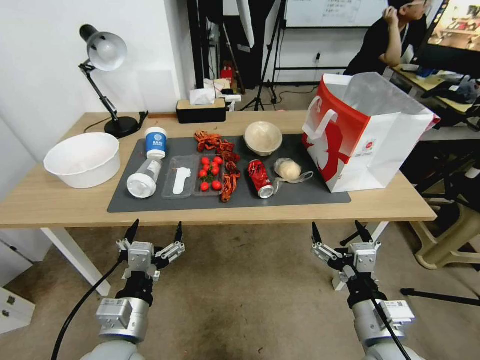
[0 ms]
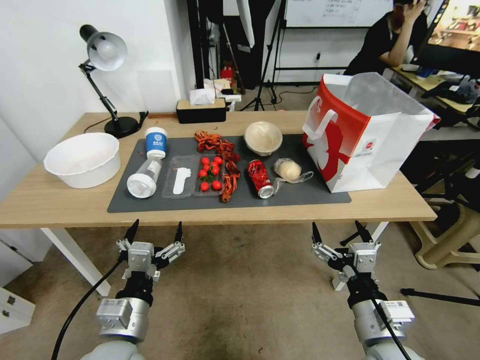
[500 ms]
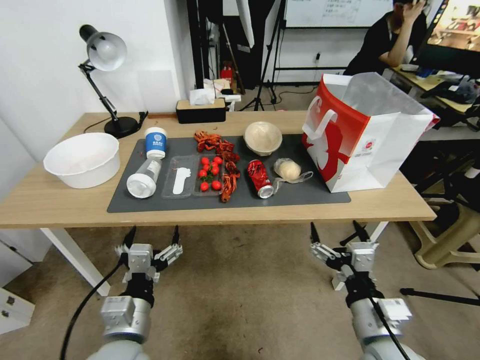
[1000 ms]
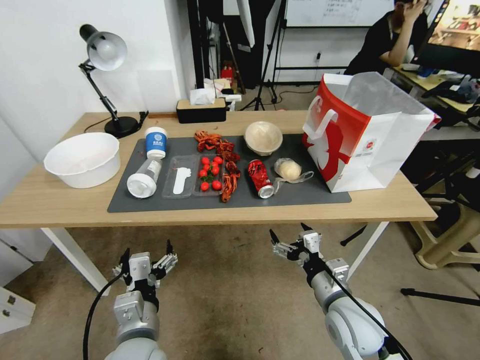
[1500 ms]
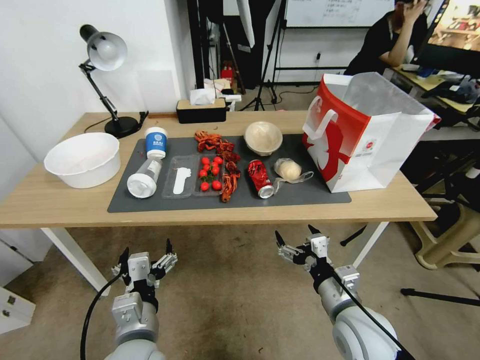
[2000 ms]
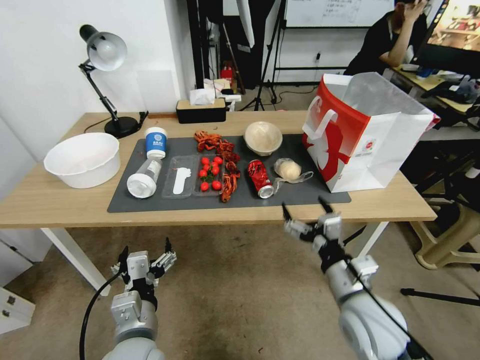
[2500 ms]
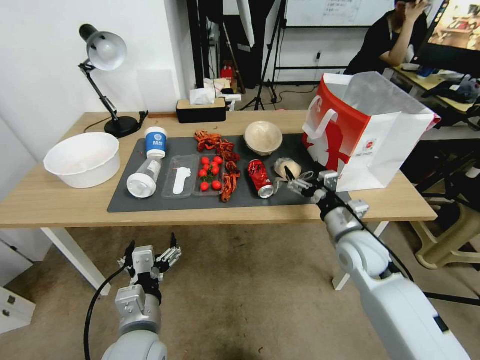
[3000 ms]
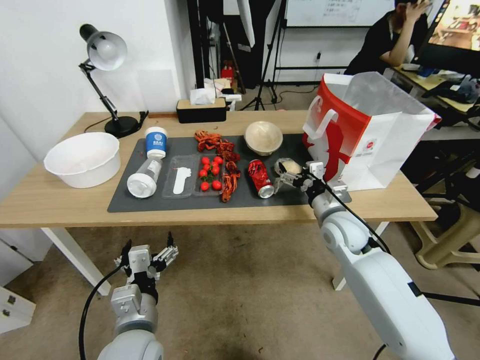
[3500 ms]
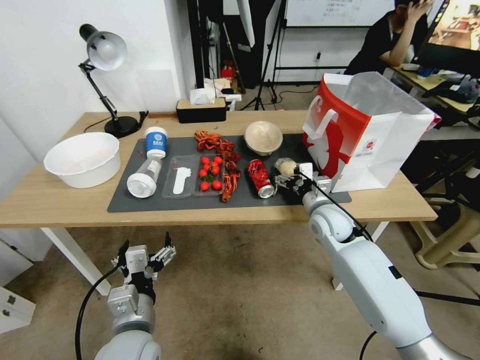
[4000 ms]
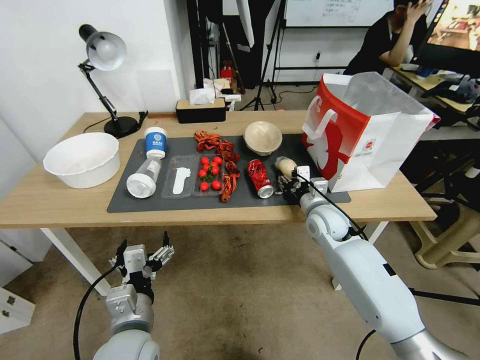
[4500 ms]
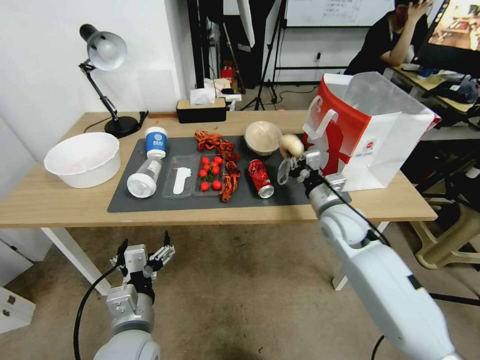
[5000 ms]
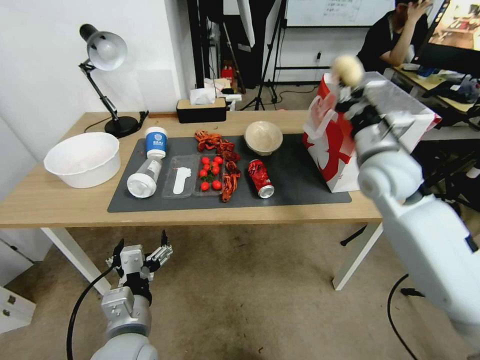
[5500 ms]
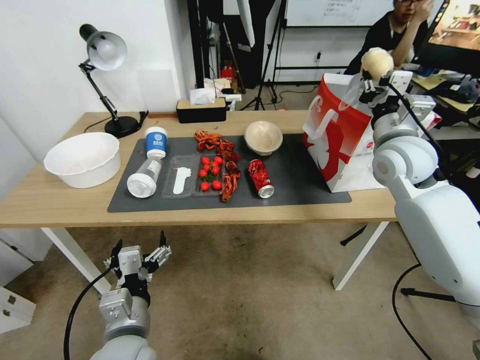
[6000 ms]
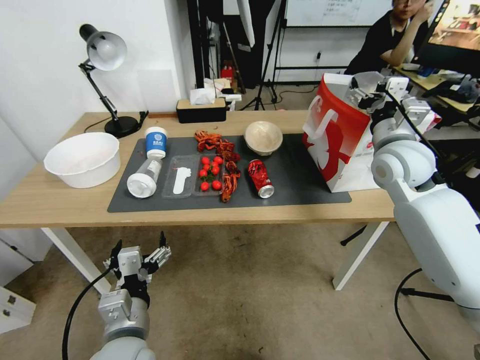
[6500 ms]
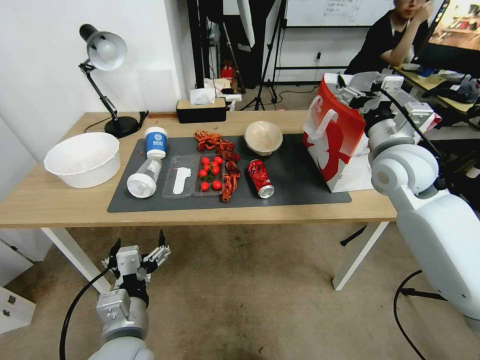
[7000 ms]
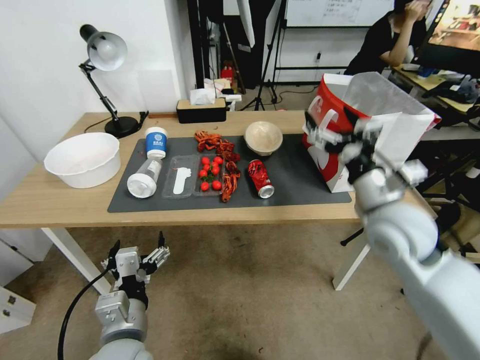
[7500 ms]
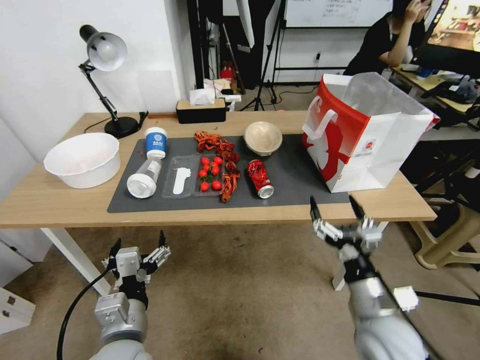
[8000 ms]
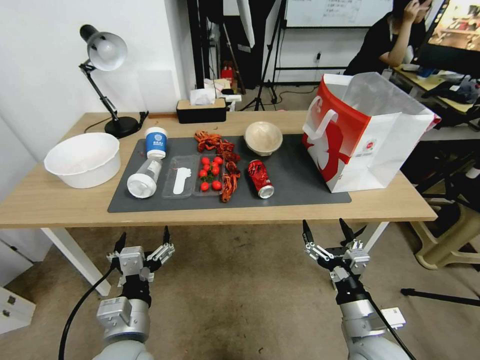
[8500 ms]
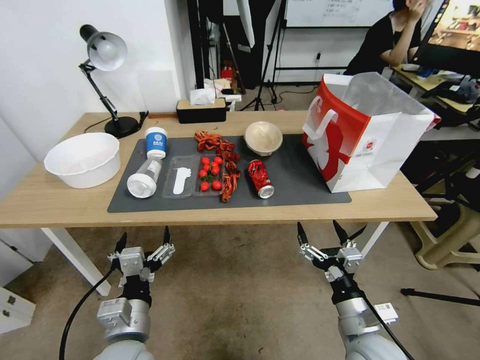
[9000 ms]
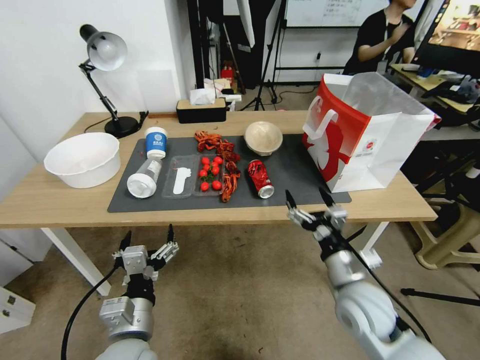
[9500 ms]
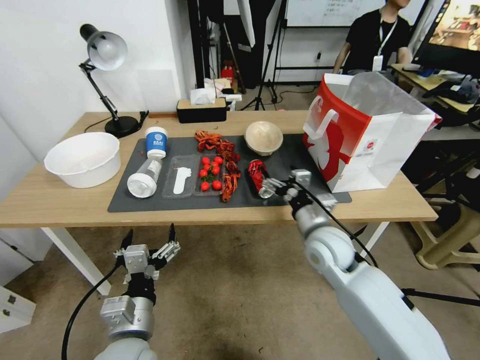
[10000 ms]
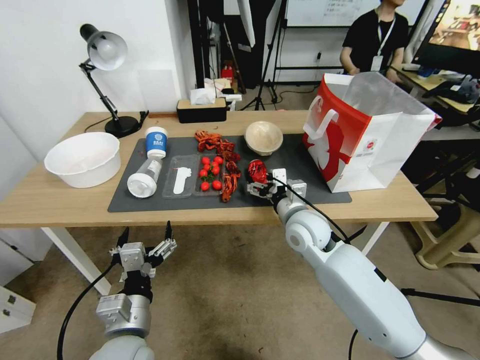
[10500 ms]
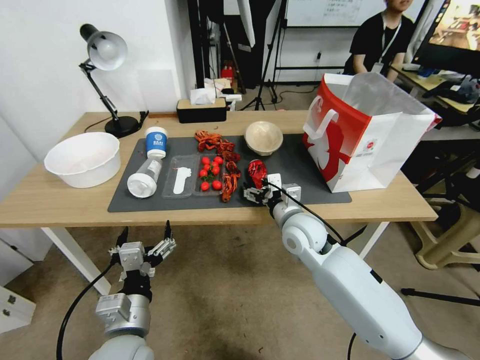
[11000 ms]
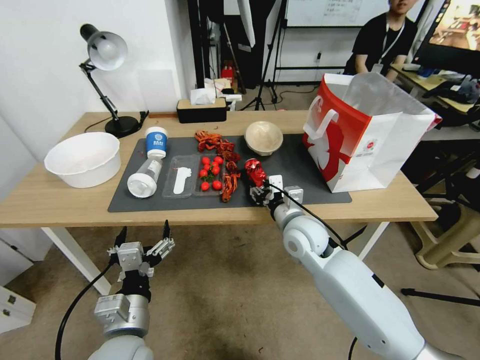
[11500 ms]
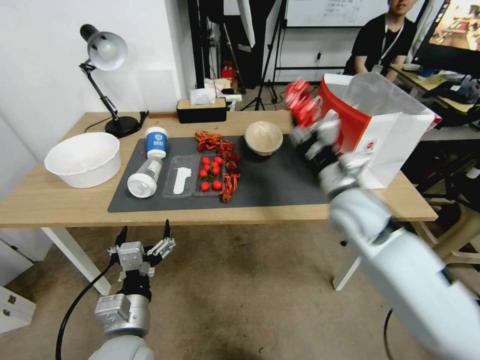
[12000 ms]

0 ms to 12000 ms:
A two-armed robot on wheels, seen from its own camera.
2000 ms to 4000 ms: The right gripper shifts approximately 20 cm forward.
4000 ms to 6000 ms: The right gripper goes about 20 cm upward and to the right, and closes.
6000 ms to 8000 ms: The right gripper moves backward and downward, approximately 35 cm, and opens its fingers.
8000 ms to 10000 ms: The right gripper shifts approximately 15 cm forward.
10000 ms to 12000 ms: The right gripper moves upward, roughly 10 cm, and closes.

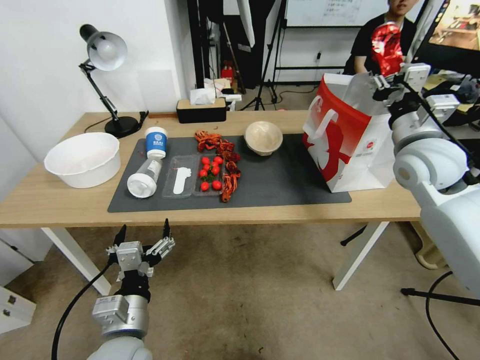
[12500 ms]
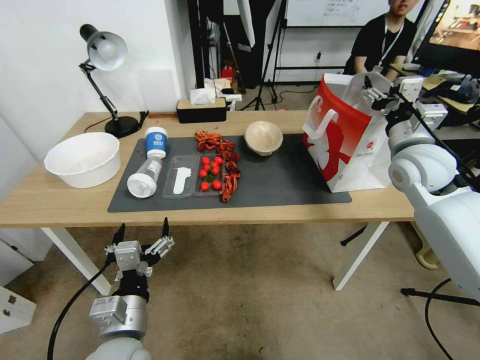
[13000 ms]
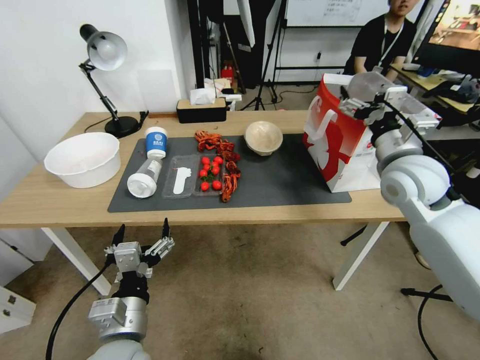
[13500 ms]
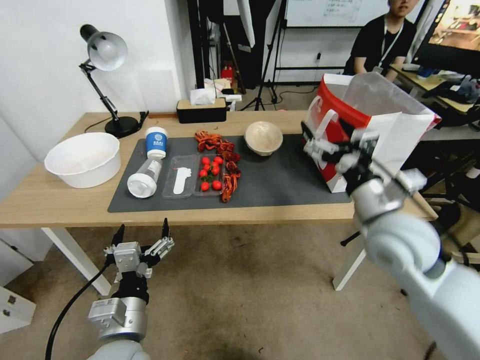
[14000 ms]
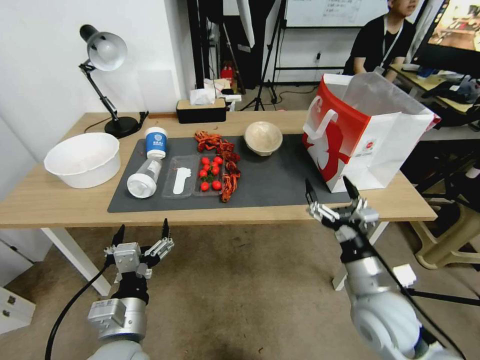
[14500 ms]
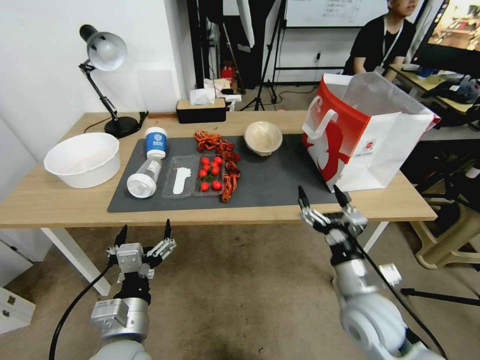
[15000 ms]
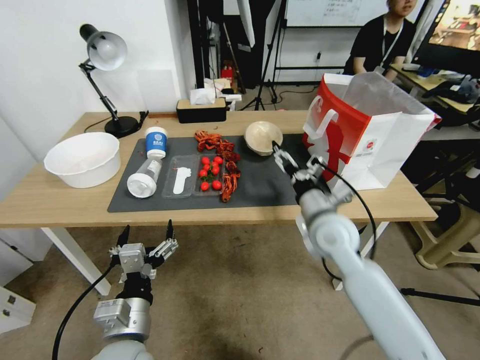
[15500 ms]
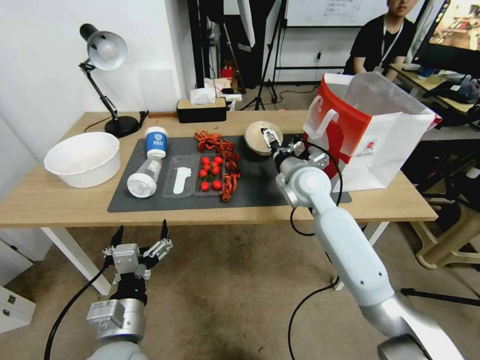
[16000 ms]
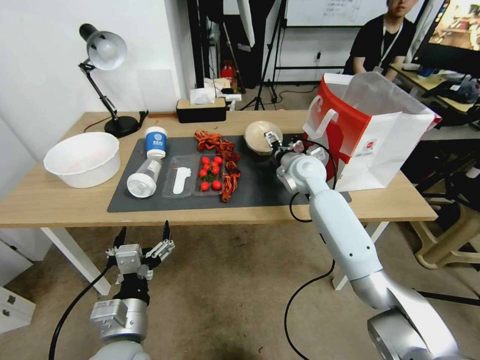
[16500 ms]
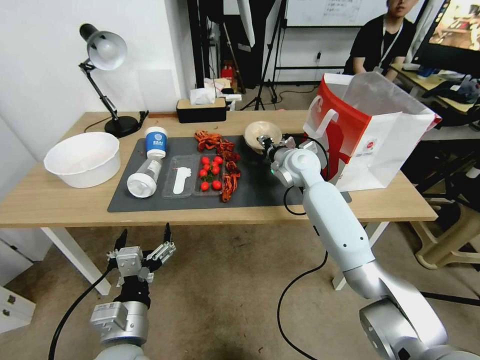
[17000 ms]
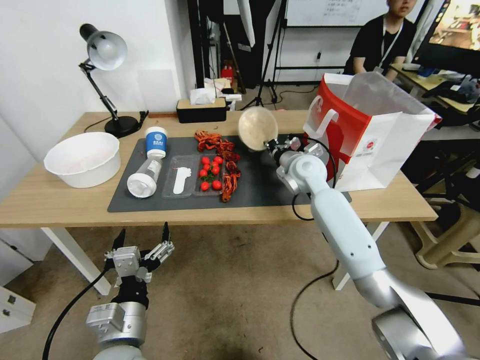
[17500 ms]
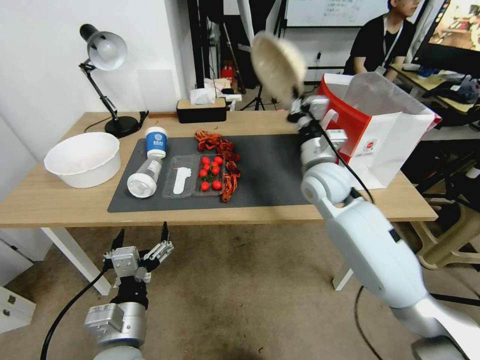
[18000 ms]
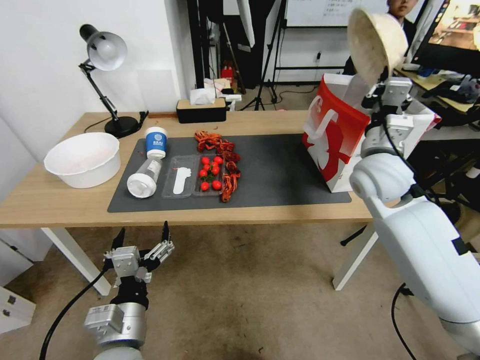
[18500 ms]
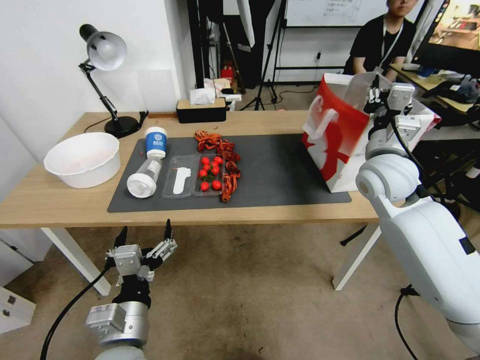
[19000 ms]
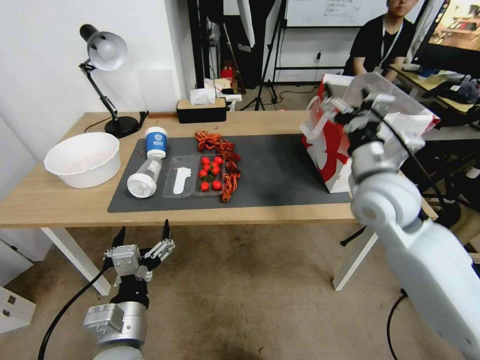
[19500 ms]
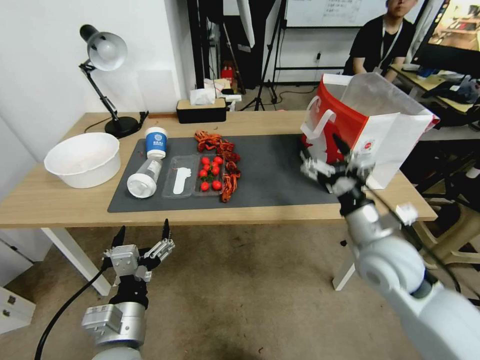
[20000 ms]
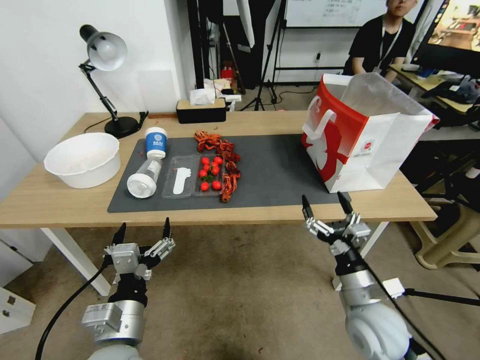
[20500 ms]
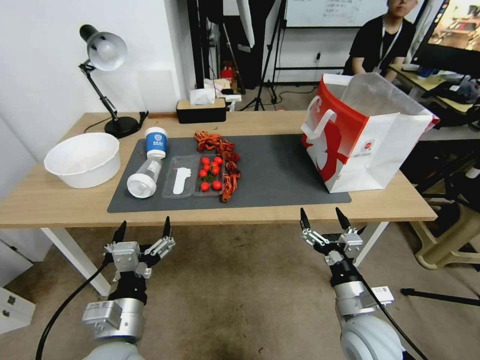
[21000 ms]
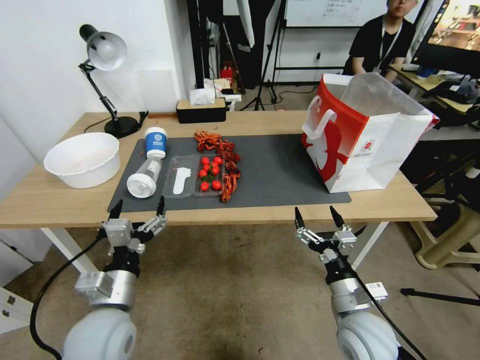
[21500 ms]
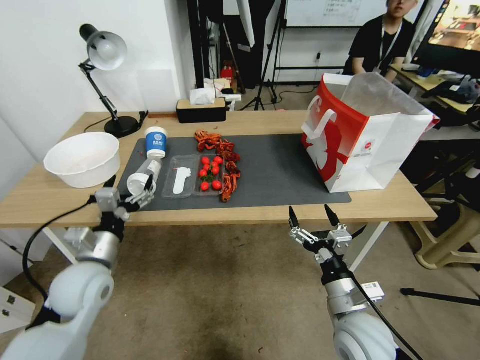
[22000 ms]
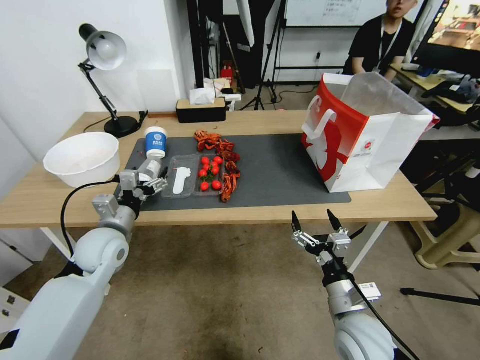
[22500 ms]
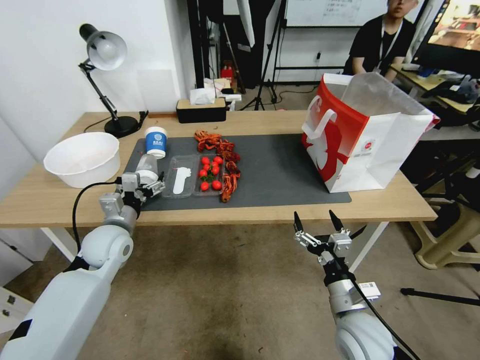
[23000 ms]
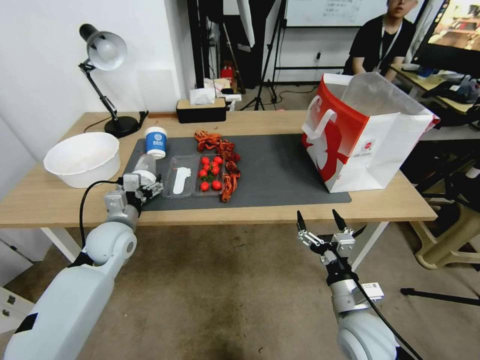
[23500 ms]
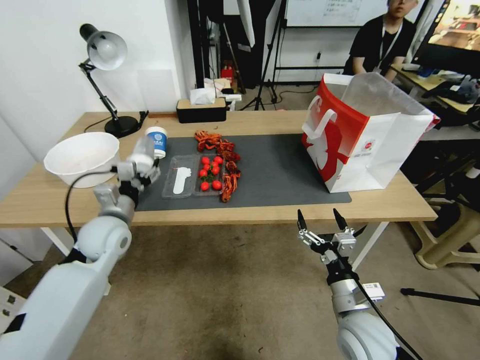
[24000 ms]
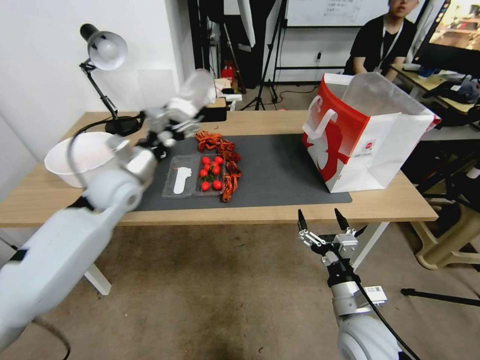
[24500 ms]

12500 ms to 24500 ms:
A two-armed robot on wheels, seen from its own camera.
12500 ms to 14500 ms: The right gripper travels backward, downward and to the left by about 25 cm, and opens.
14500 ms to 16500 ms: The right gripper moves forward, some 30 cm.
16500 ms to 18500 ms: The right gripper goes approximately 15 cm backward, to the right and upward, and closes.
18500 ms to 20500 ms: The right gripper goes roughly 30 cm downward and backward, and opens.
20500 ms to 22500 ms: The left gripper travels forward and to the left by approximately 25 cm.
22500 ms to 24500 ms: The left gripper travels upward and forward by about 15 cm.

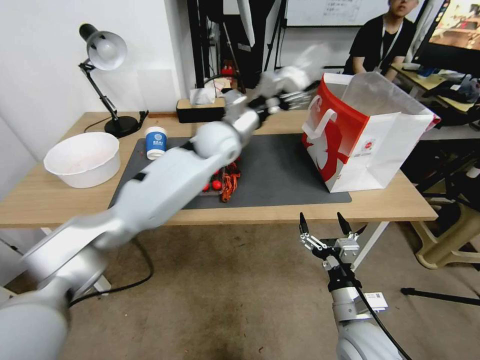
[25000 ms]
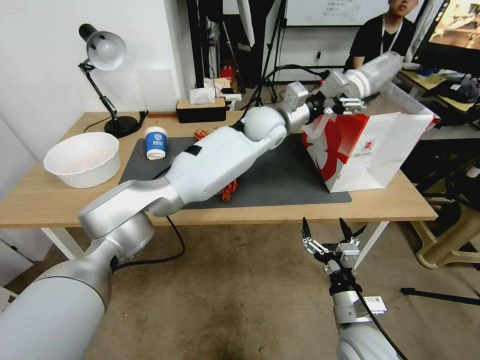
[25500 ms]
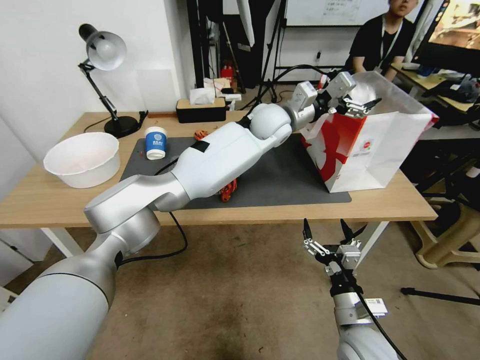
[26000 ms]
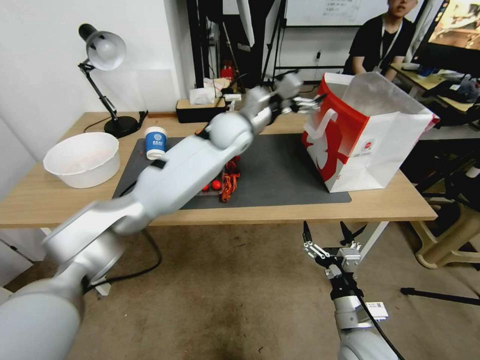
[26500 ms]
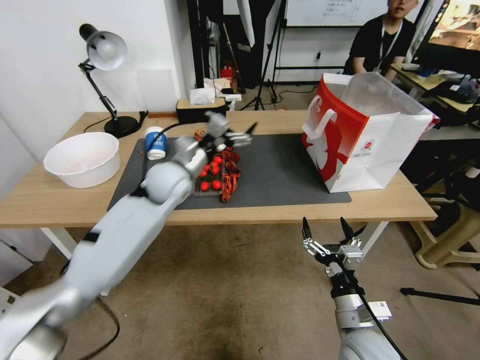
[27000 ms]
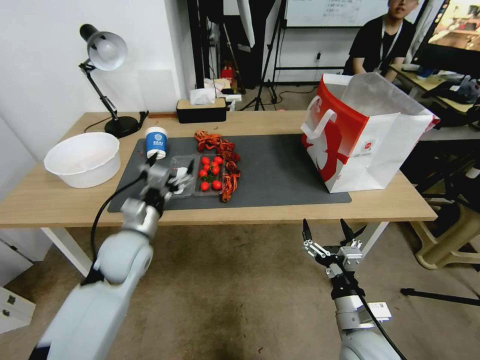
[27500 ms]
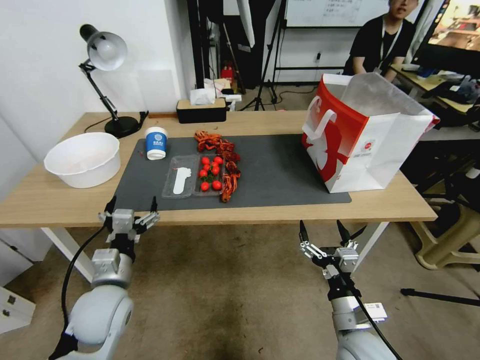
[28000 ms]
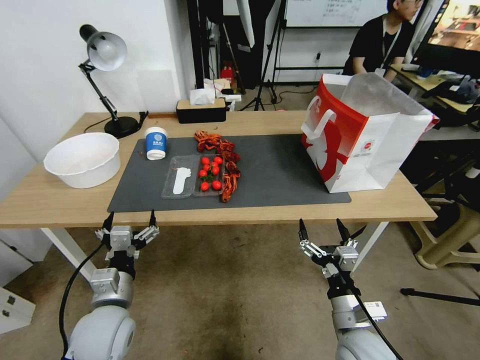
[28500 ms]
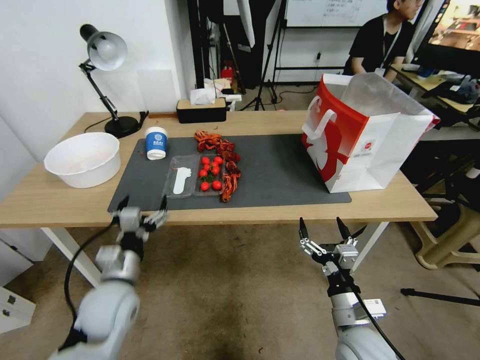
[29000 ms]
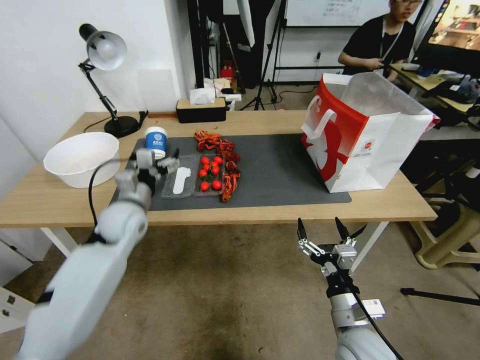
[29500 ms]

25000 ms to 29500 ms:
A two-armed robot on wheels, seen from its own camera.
25000 ms to 27000 ms: The left gripper travels to the left, downward and backward by roughly 15 cm.
27000 ms to 29500 ms: The left gripper goes roughly 10 cm to the left and downward, and moves some 25 cm backward and comes back.
